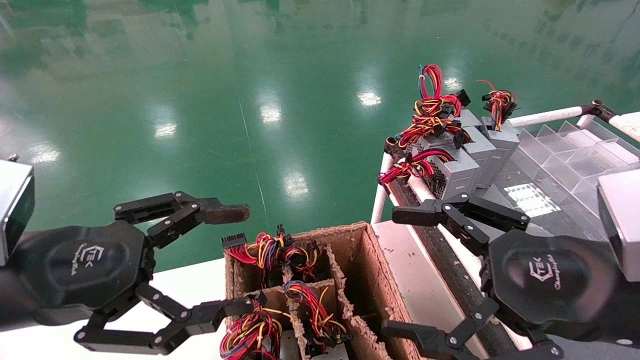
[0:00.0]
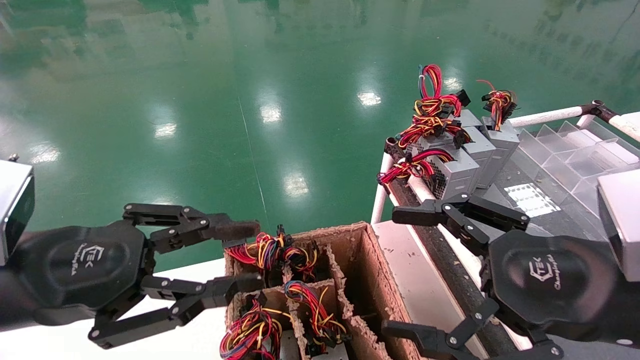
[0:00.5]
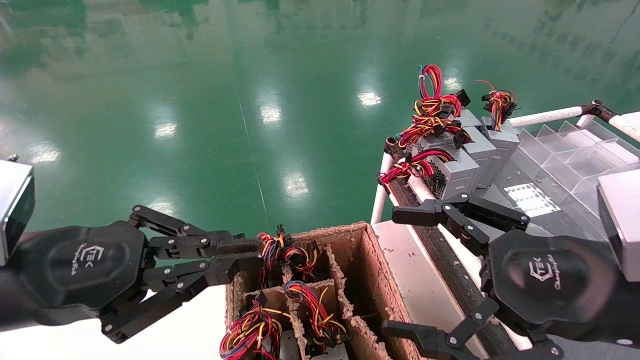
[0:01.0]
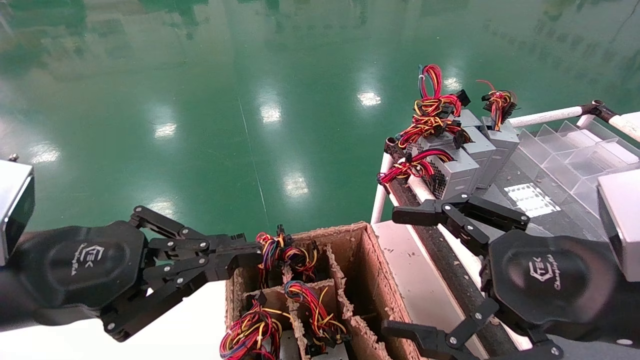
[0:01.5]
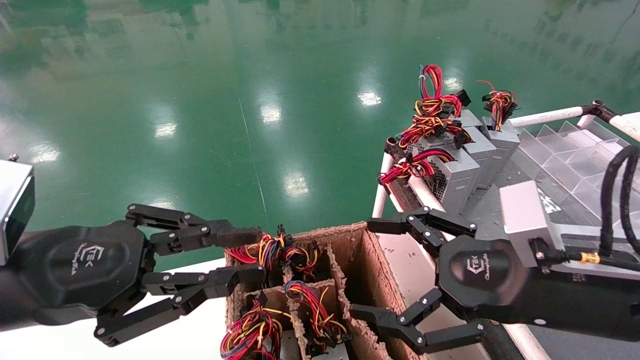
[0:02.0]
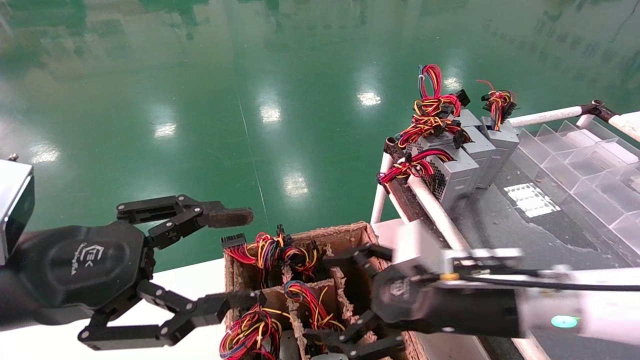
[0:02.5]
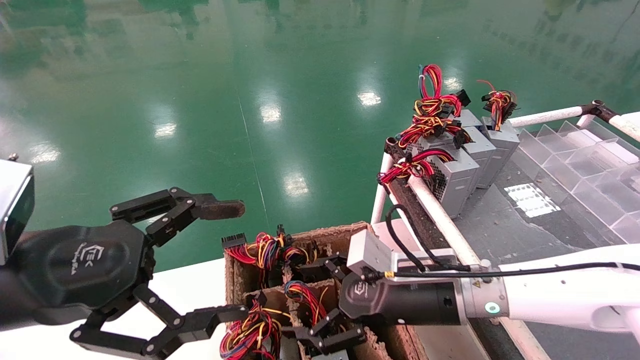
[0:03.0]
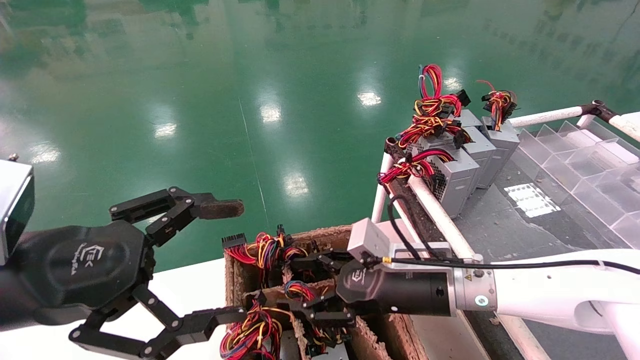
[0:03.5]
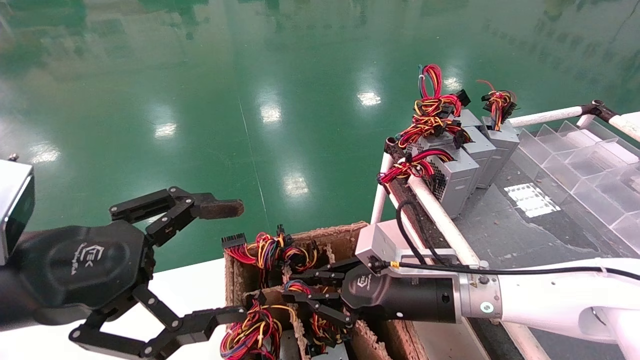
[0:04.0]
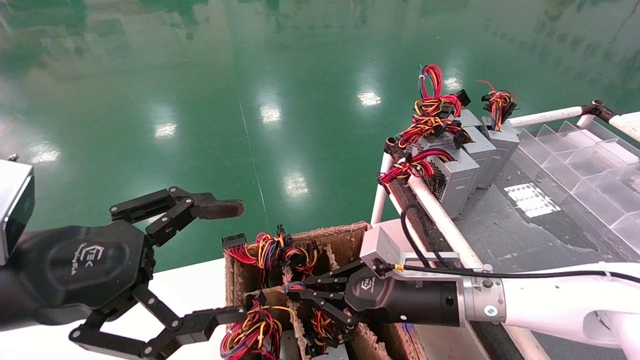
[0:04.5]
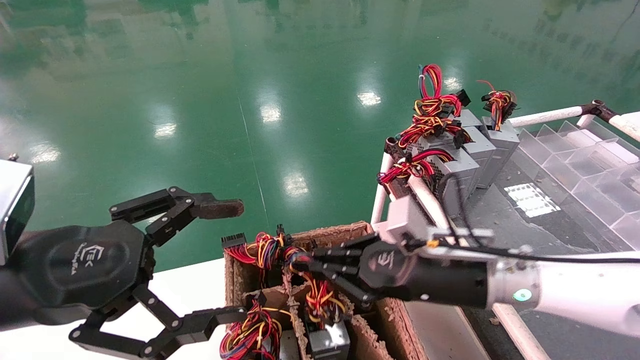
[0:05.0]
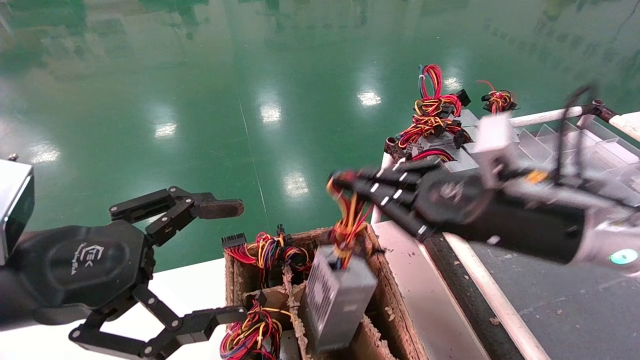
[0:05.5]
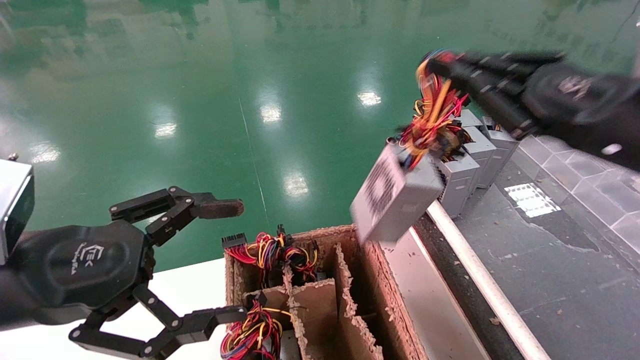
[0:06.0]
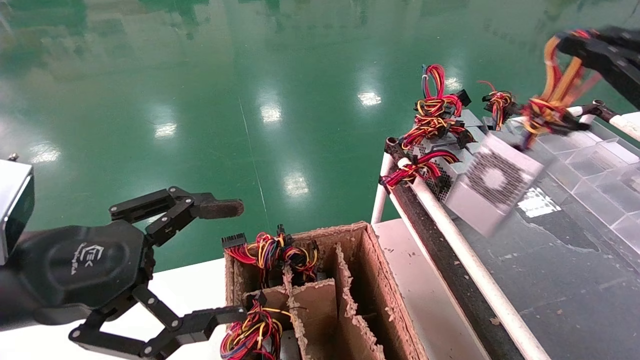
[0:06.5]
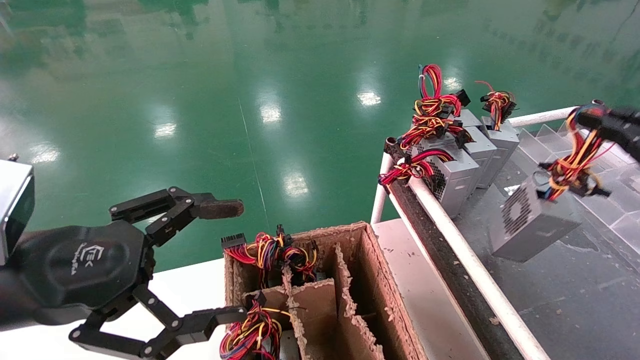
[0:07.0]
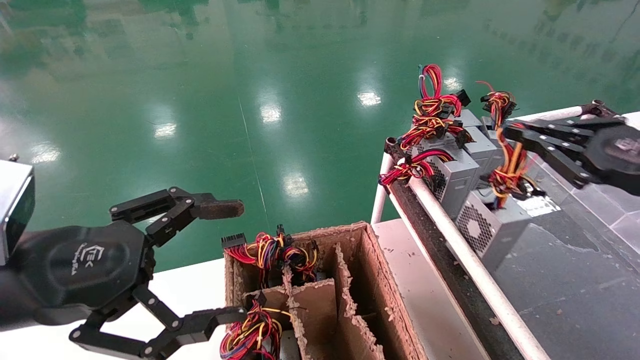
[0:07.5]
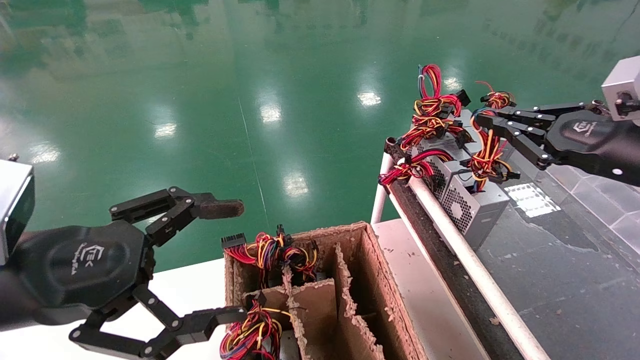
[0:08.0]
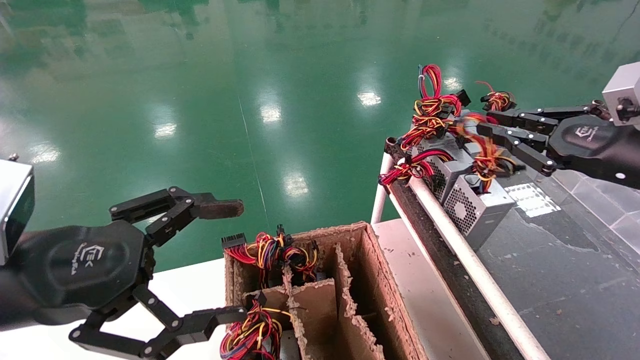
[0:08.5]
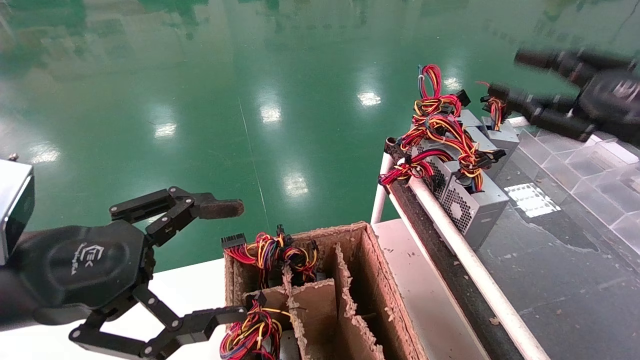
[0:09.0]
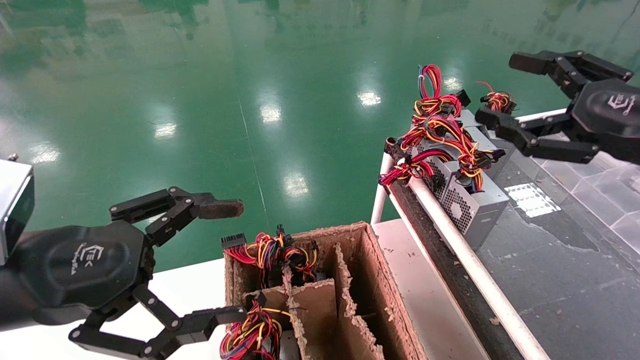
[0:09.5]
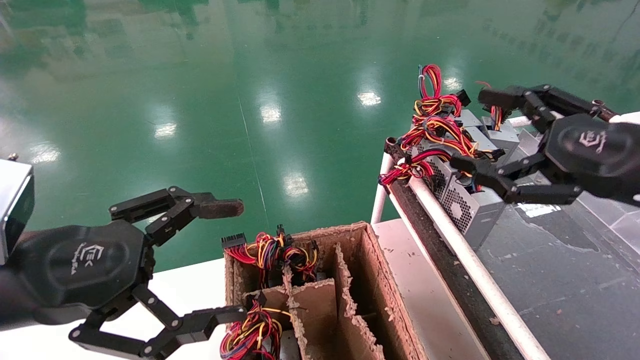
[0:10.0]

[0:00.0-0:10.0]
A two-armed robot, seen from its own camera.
Step, 0:01.5 to 0:04.5: Grab and lift the power supply from the large box.
Step, 0:05.0 to 0:08.5: Place the power supply on the operating table.
0:00.0 to 0:02.0: The right gripper moves approximately 5 cm. The left gripper closes its fingers.
0:02.0 to 0:04.0: The left gripper opens. Meanwhile the right gripper goes approximately 20 cm forward, downward and to the left, and closes up.
0:04.0 to 0:06.0: The right gripper travels upward, to the right and backward by roughly 30 cm.
0:06.0 to 0:08.0: The right gripper shifts approximately 10 cm to the right and forward.
0:08.0 to 0:10.0: The right gripper shifts roughly 5 cm backward, and opens.

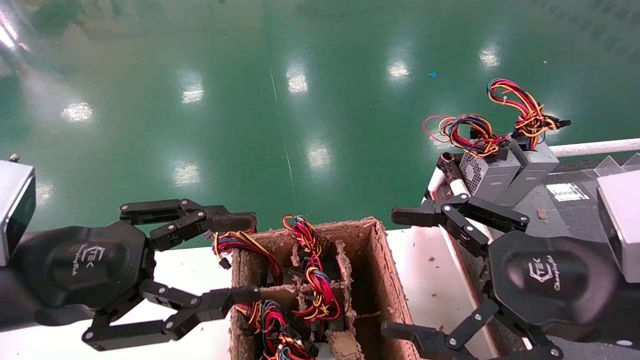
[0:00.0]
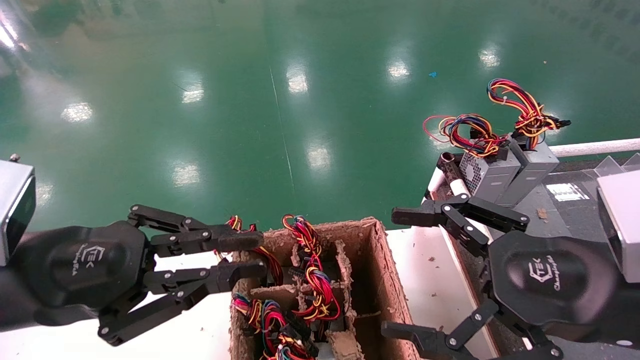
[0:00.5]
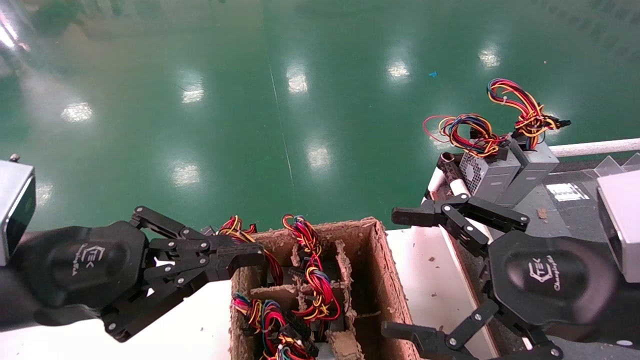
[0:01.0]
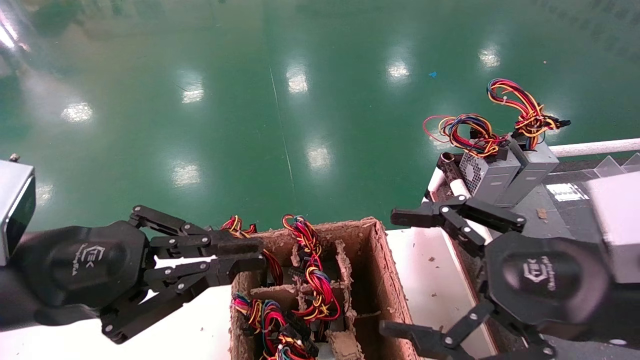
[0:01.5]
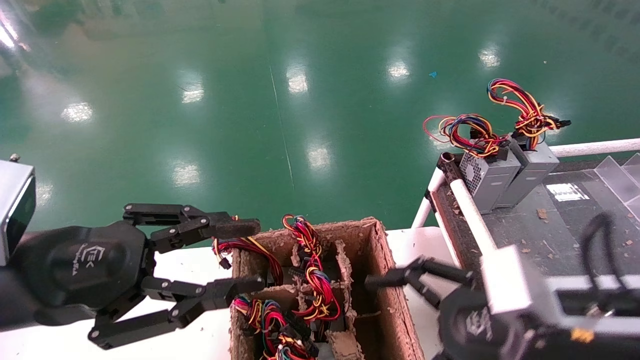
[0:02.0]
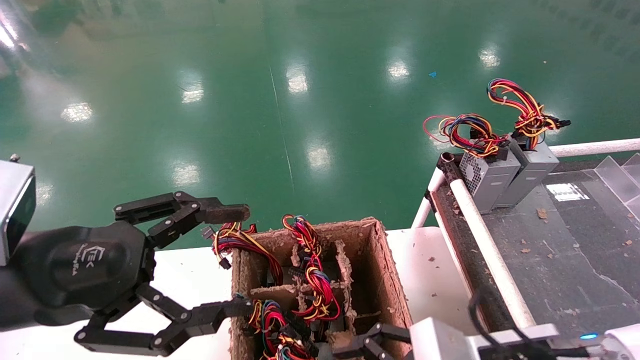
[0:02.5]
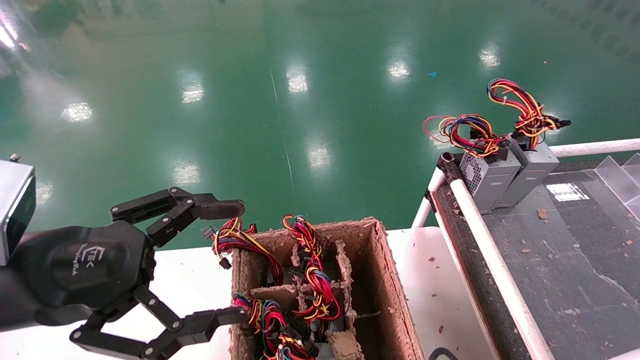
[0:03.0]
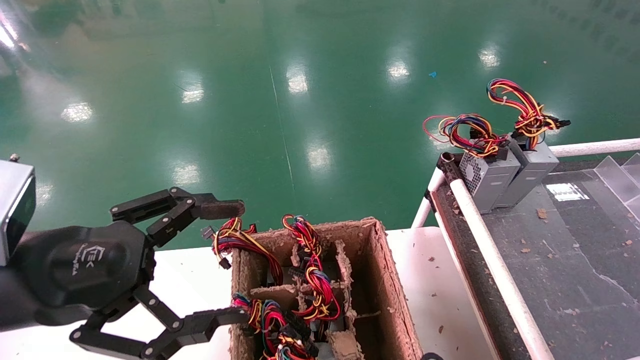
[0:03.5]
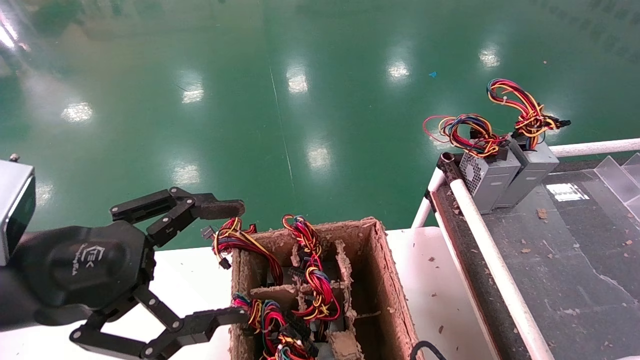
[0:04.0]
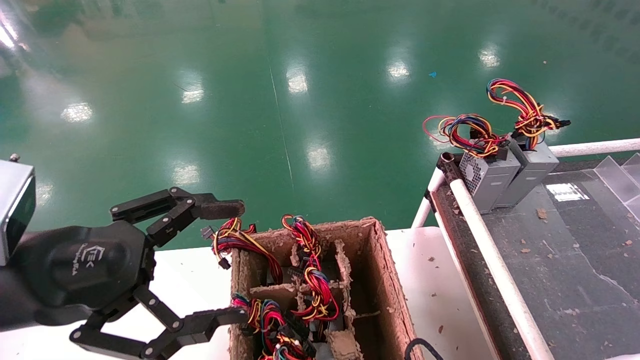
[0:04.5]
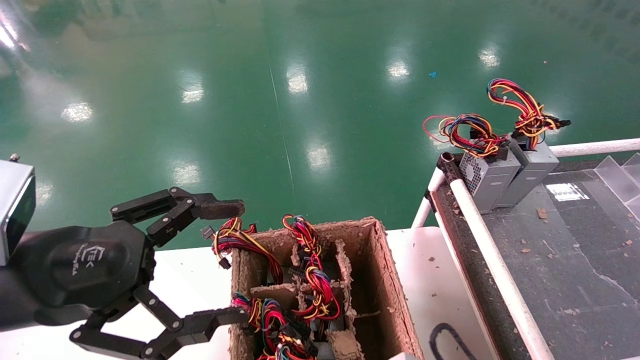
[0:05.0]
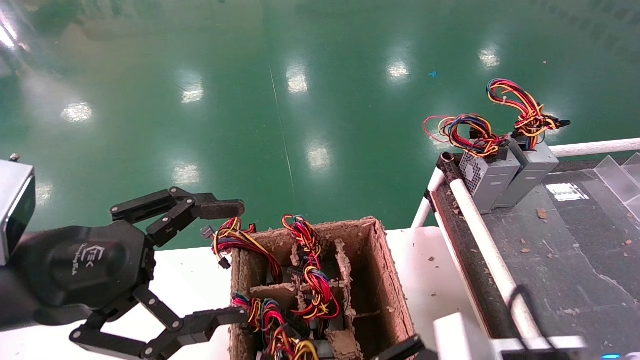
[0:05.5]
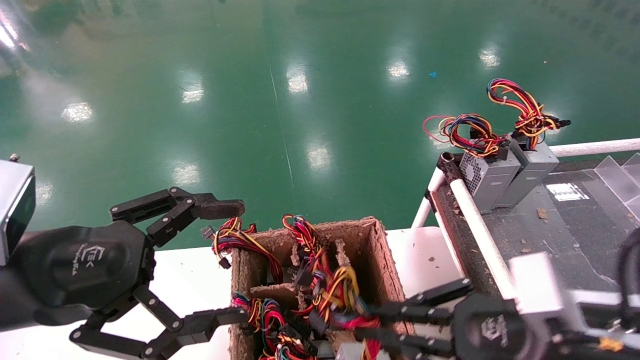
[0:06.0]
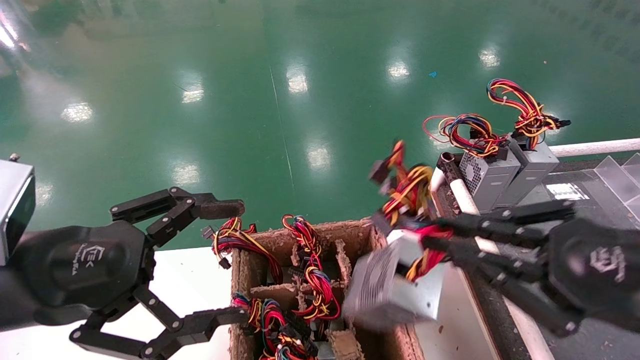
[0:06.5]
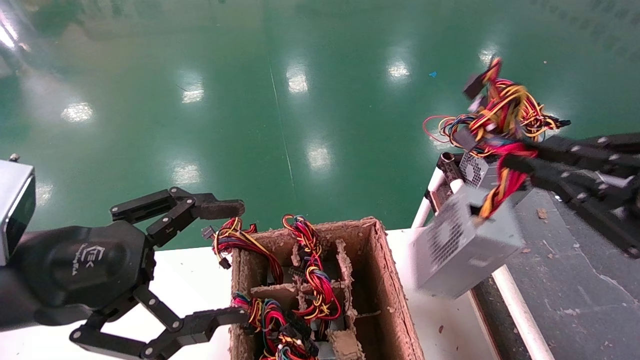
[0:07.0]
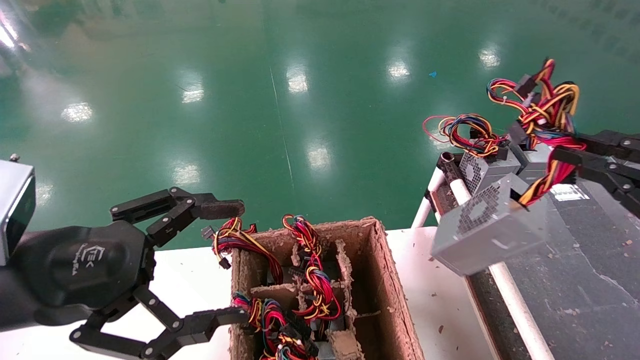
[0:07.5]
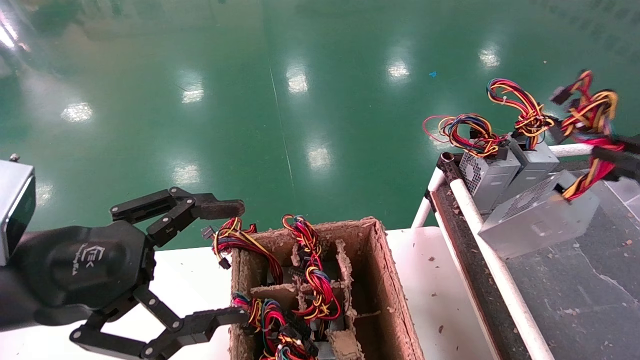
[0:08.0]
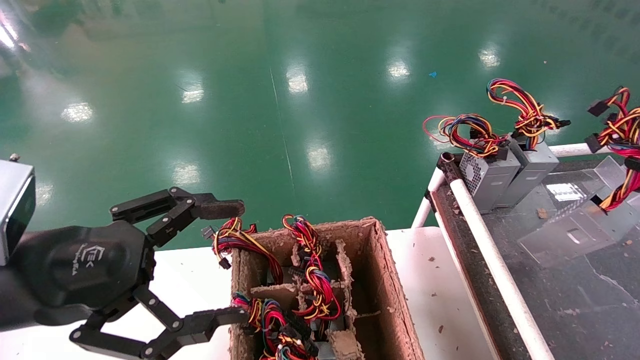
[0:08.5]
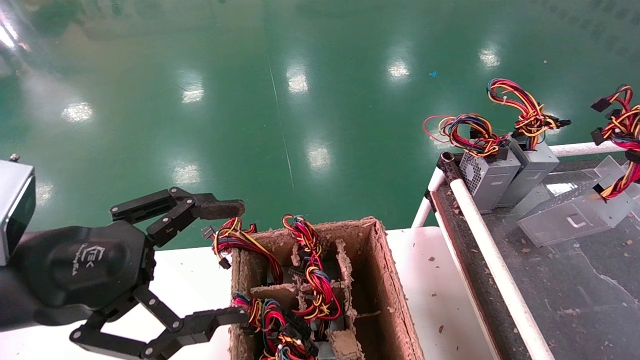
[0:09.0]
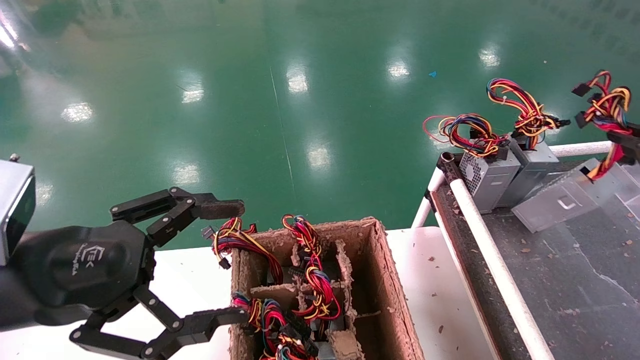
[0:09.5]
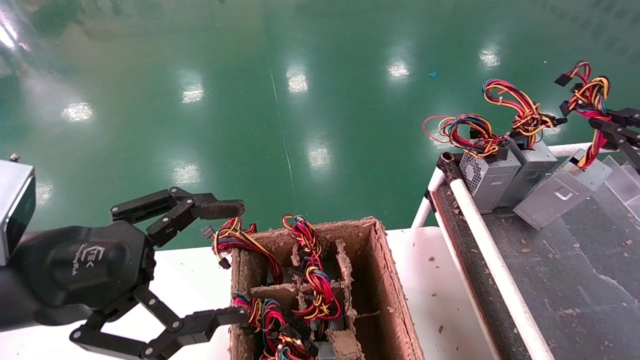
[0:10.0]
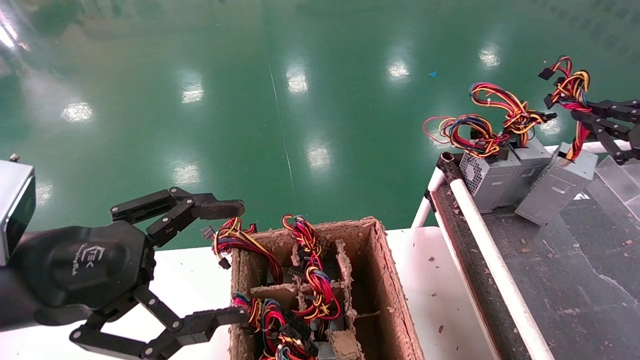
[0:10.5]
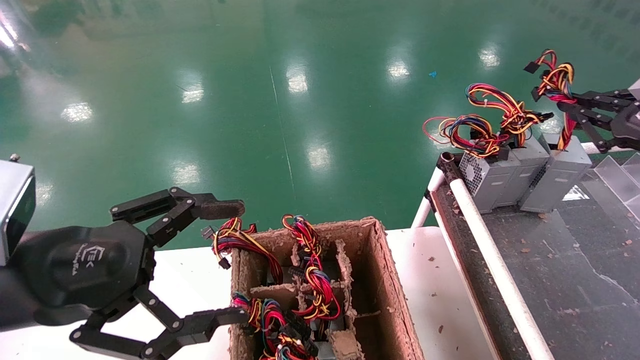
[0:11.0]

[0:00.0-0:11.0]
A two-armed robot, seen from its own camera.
Step, 0:02.5 to 0:05.5: Grab and lift the power supply from the large box.
0:00.0 to 0:02.0: The right gripper goes roughly 5 cm downward.
0:02.0 to 0:03.5: The right gripper heads downward, covering approximately 15 cm, while the left gripper opens.
0:03.5 to 0:05.5: The right gripper is displaced upward by approximately 5 cm, and closes its fingers.
0:05.5 to 0:07.5: The right gripper goes about 25 cm to the right and upward.
0:07.5 to 0:09.0: The right gripper shifts roughly 10 cm to the right and forward.
0:09.0 to 0:11.0: The right gripper heads forward and upward, covering about 15 cm.
